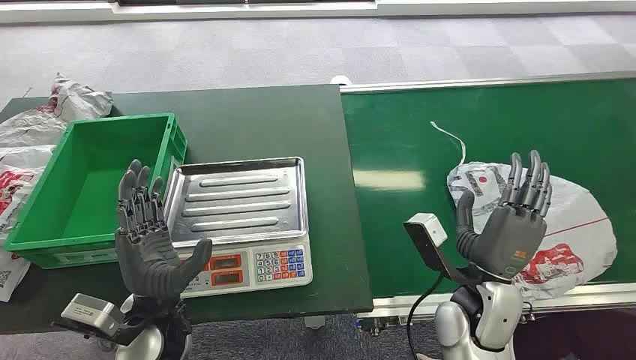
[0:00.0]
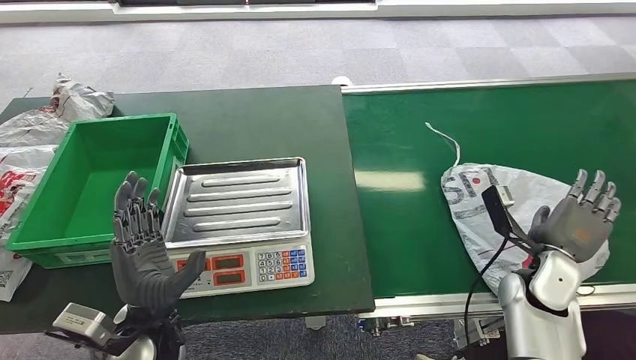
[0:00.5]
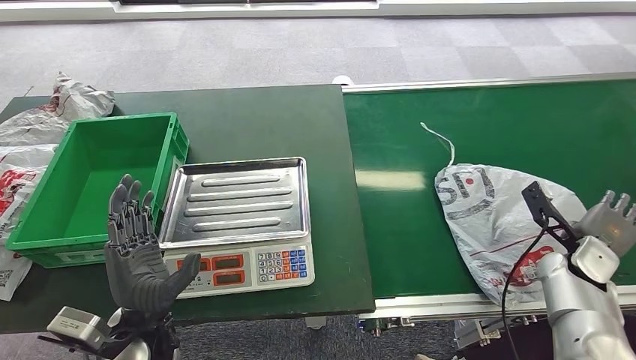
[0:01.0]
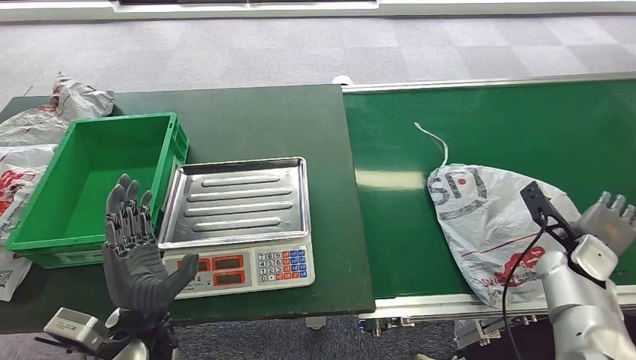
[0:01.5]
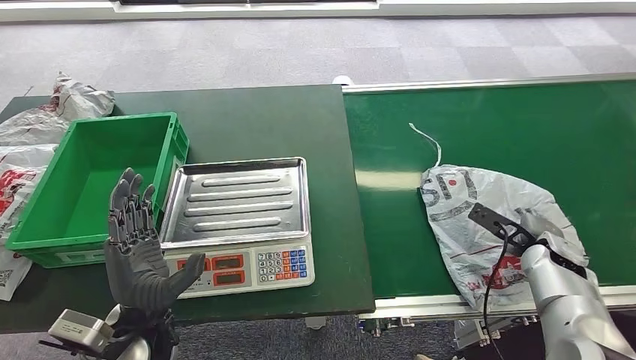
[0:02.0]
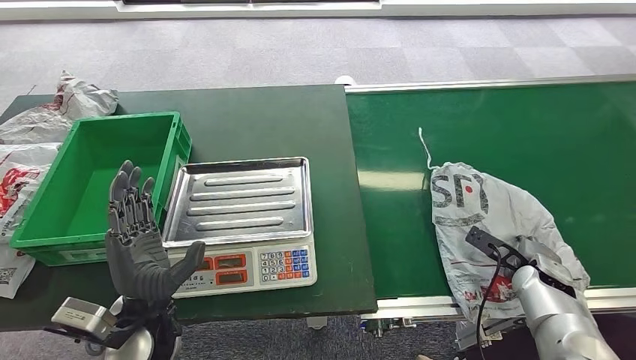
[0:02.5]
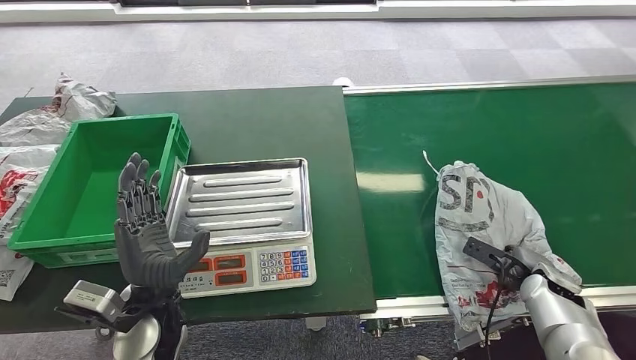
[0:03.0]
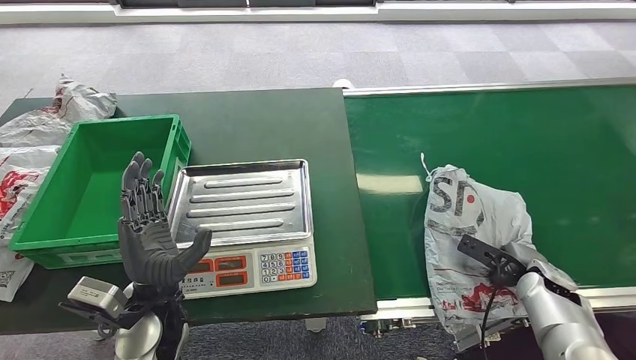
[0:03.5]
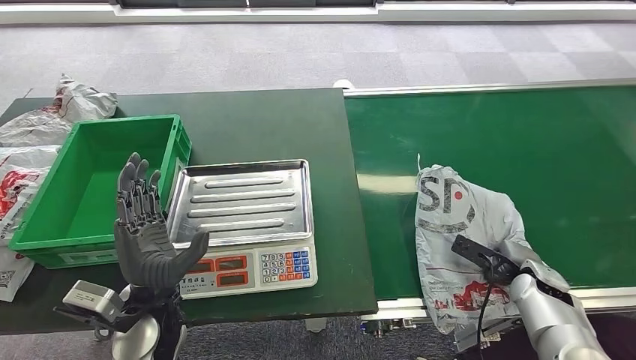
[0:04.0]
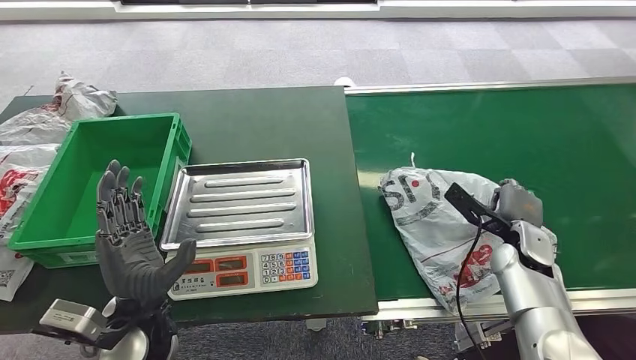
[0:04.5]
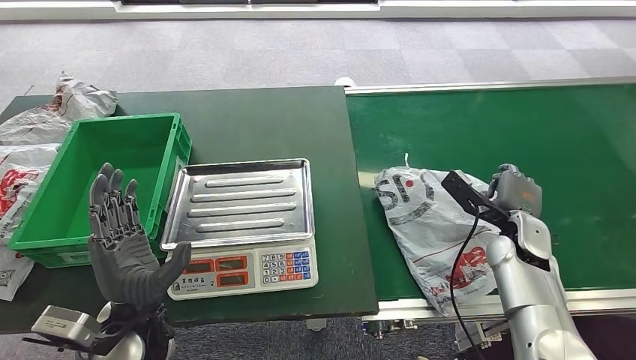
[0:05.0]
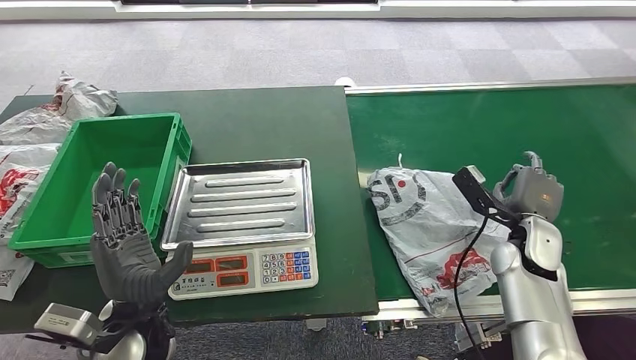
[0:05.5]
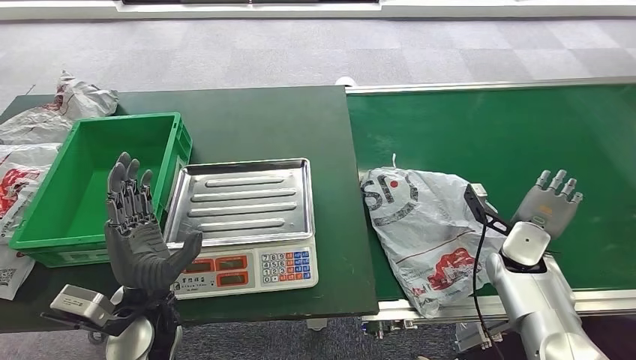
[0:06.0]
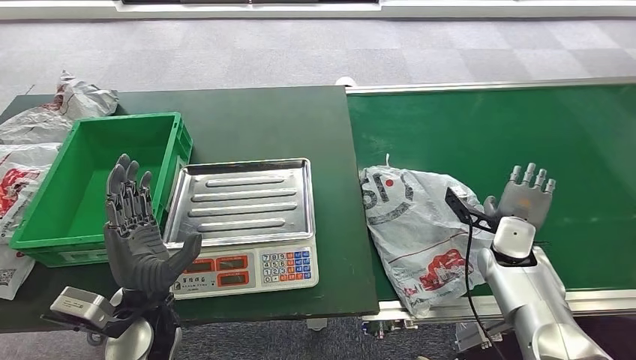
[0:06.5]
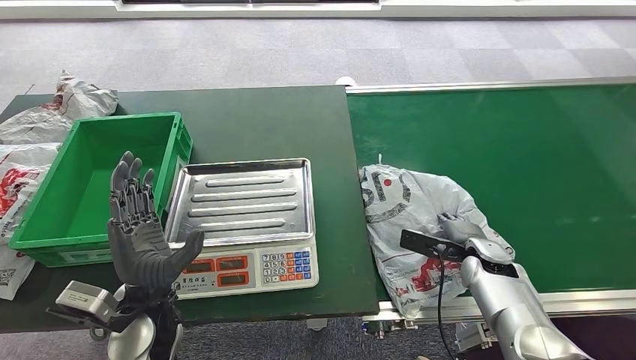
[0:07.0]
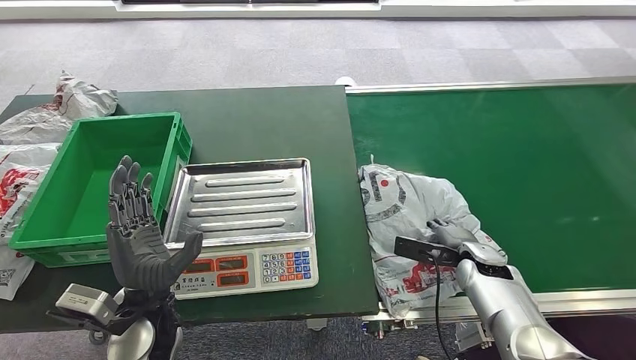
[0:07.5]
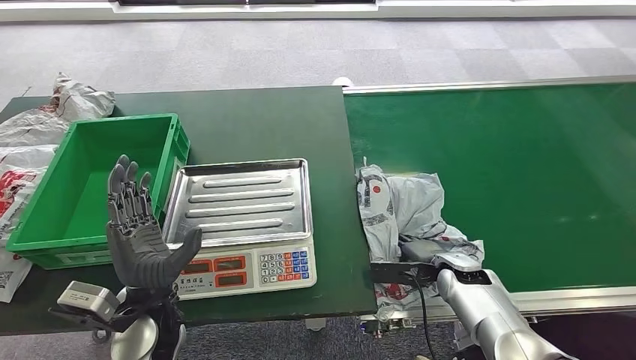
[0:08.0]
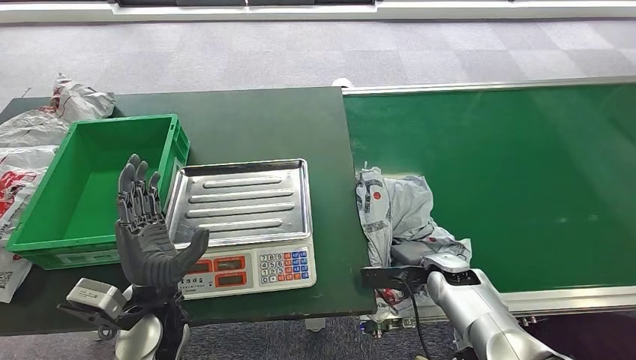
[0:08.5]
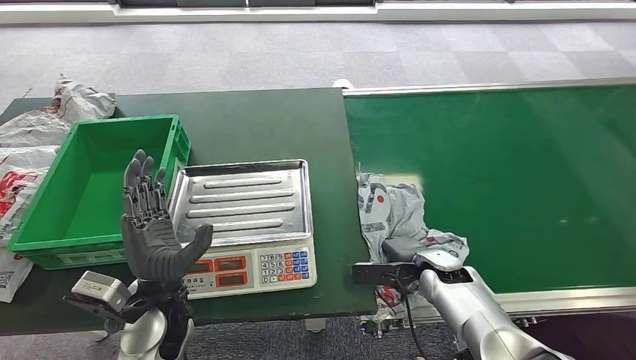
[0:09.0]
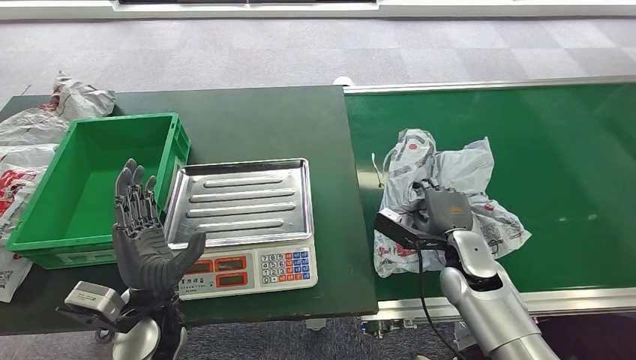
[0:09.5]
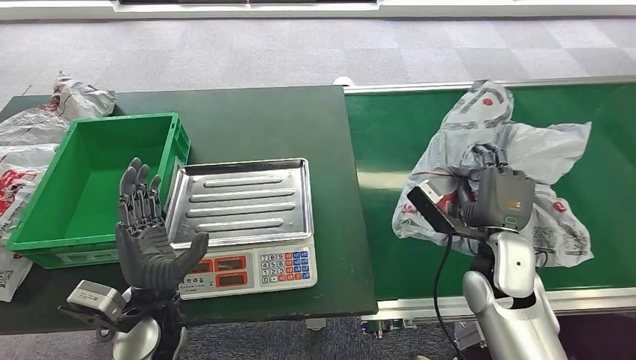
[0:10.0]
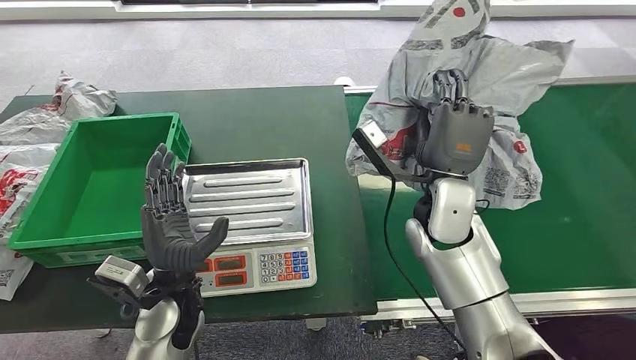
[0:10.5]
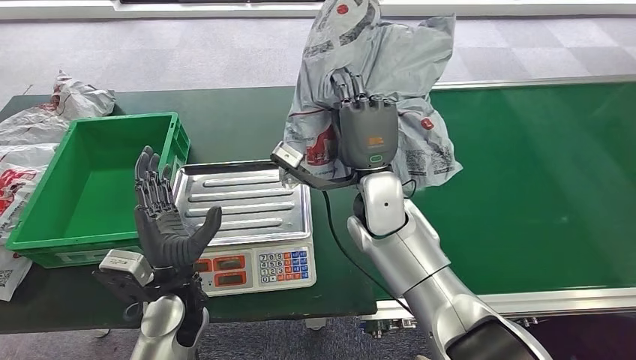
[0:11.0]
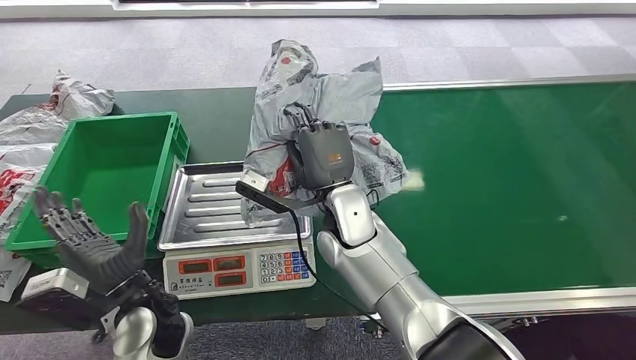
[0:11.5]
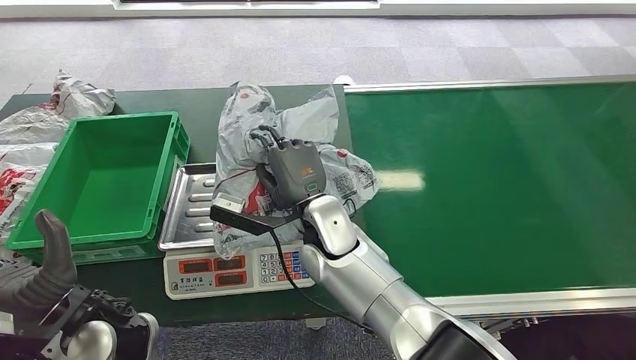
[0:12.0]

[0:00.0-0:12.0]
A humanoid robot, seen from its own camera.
Step, 0:00.0 to 0:09.5: Pick up the package from the conveyor belt.
0:06.0 to 0:08.0: The right hand travels to the left and downward by roughly 10 cm.
0:08.0 to 0:10.0: The right hand goes roughly 15 cm upward.

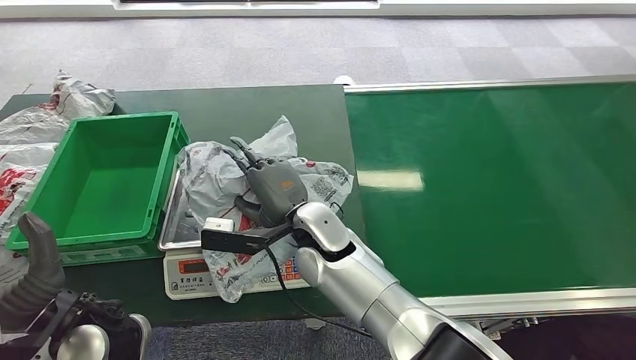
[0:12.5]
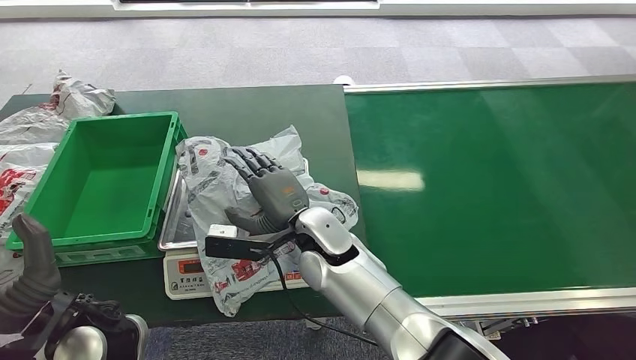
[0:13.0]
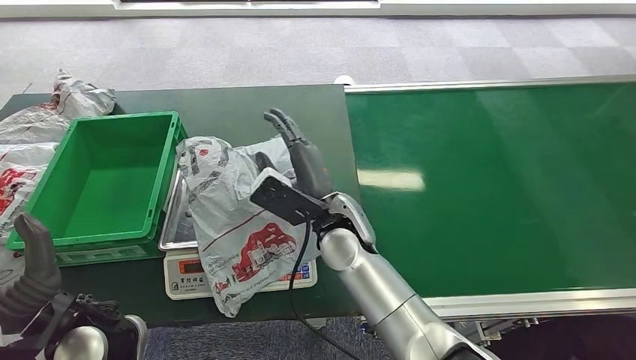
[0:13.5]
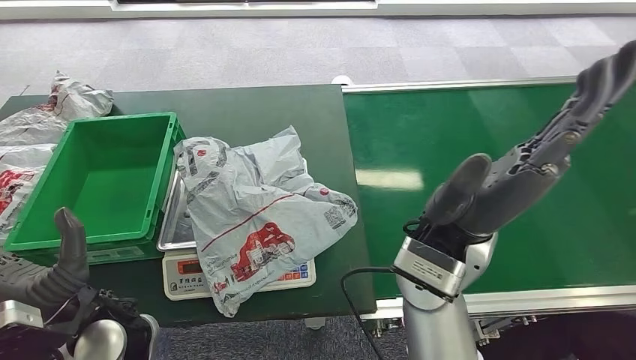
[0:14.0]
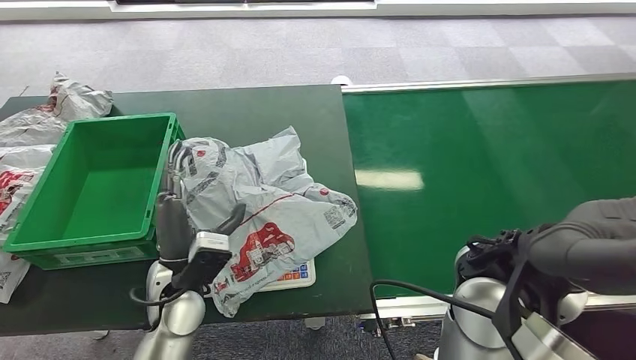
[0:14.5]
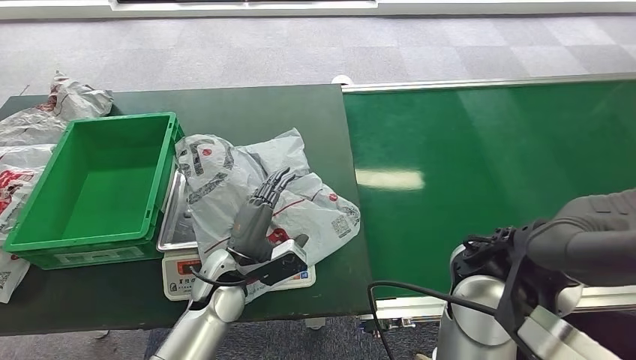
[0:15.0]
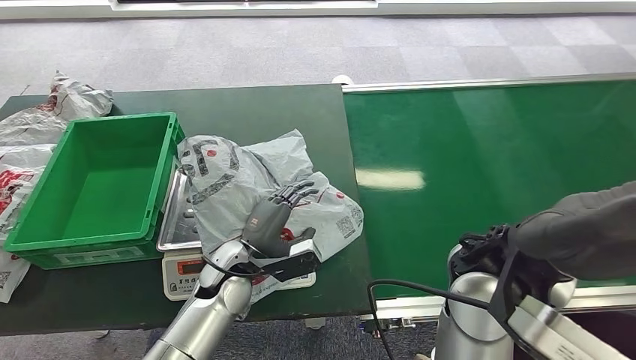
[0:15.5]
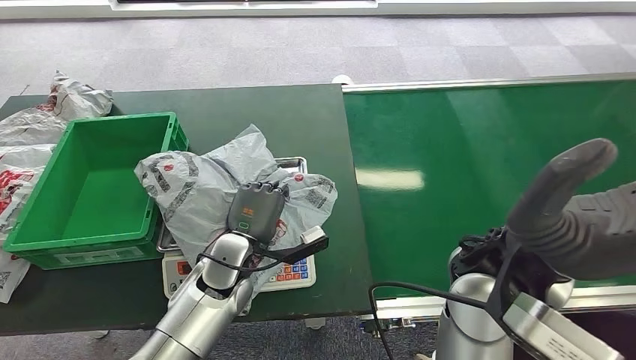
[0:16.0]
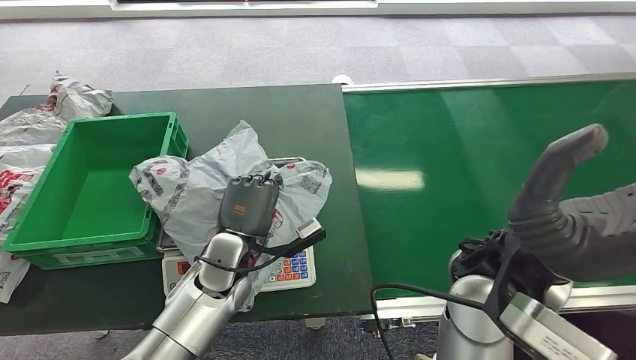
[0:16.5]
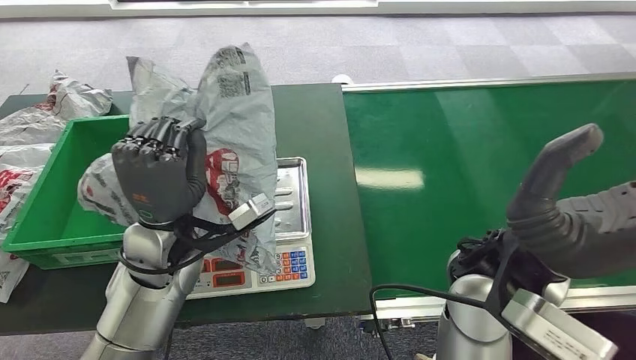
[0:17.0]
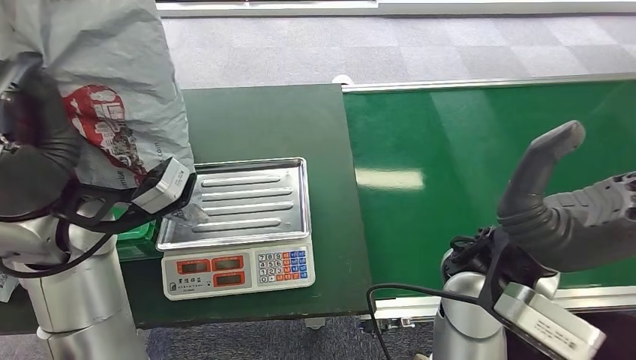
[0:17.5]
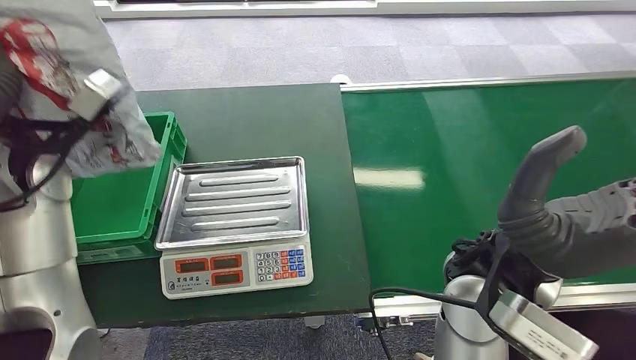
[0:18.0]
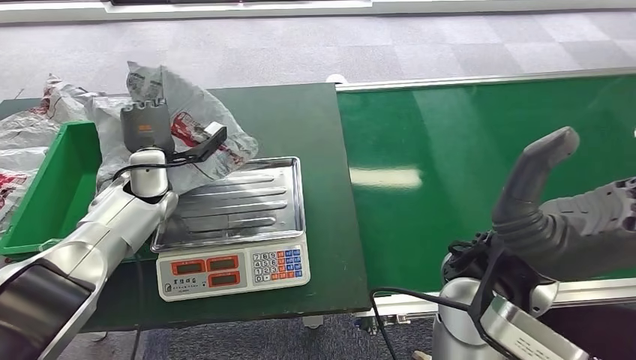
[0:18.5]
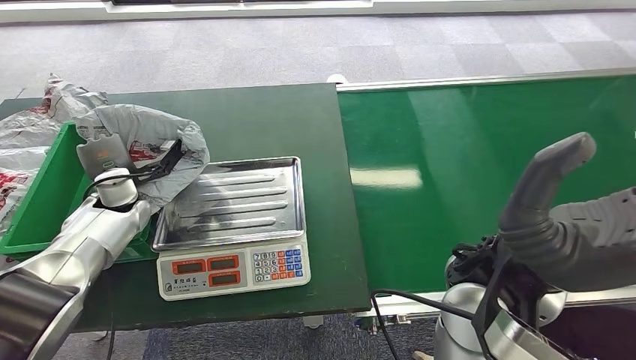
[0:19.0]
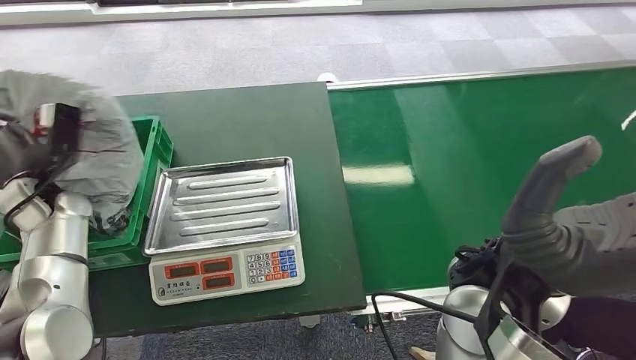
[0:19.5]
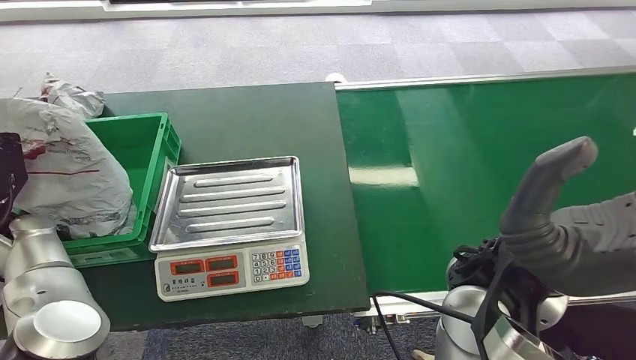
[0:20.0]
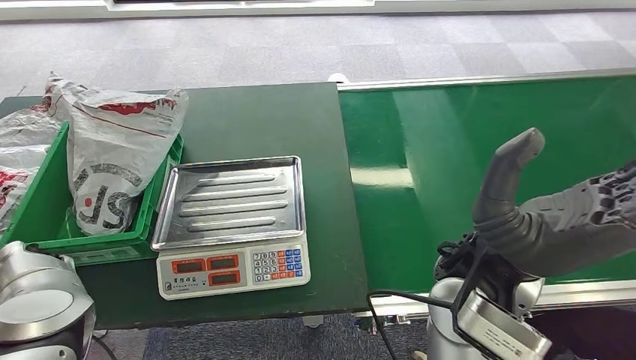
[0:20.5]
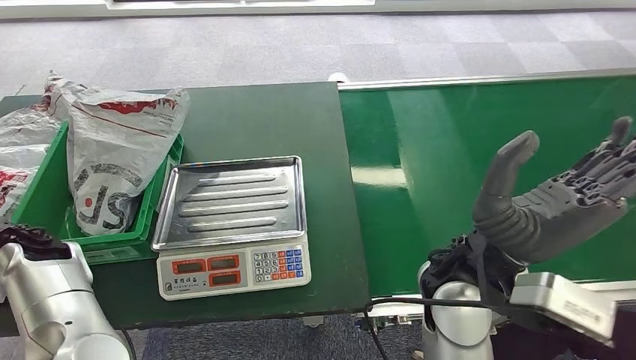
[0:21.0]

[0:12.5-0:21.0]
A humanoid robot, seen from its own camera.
Step, 0:13.5 to 0:17.0: Pick up the package from the inbound machine.
Step, 0:17.5 to 0:21.0: Place the package into the parcel locker.
